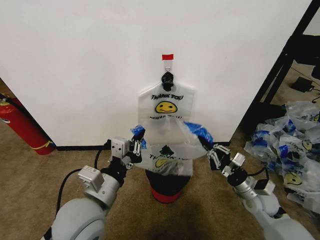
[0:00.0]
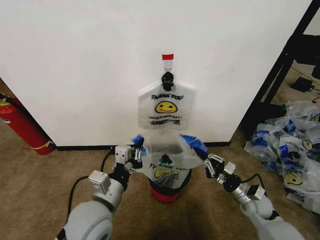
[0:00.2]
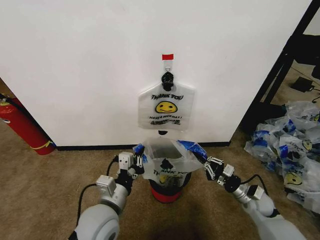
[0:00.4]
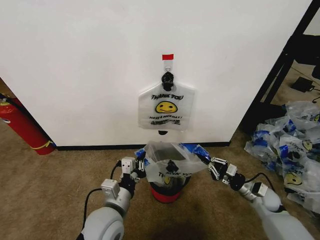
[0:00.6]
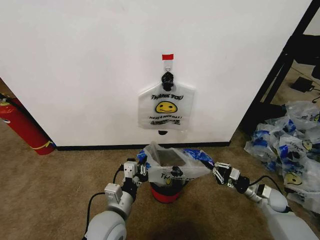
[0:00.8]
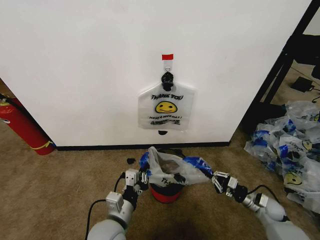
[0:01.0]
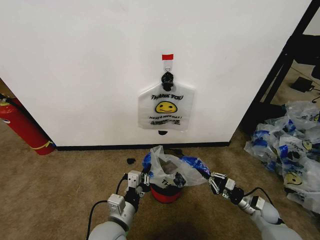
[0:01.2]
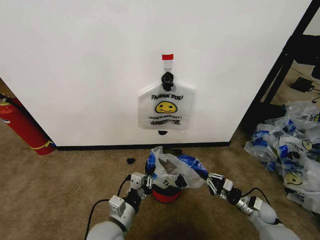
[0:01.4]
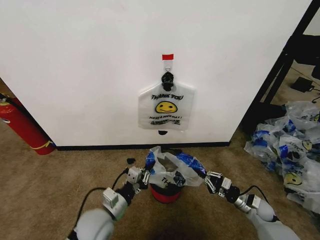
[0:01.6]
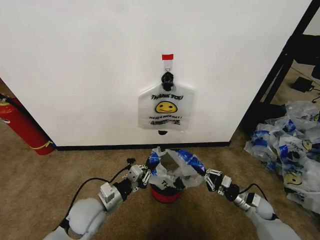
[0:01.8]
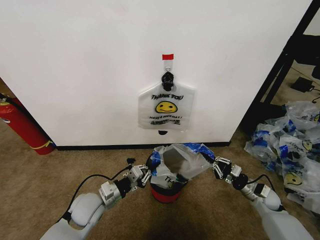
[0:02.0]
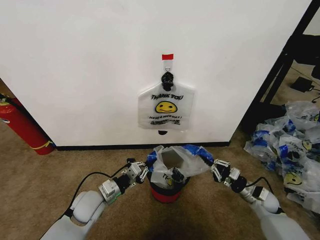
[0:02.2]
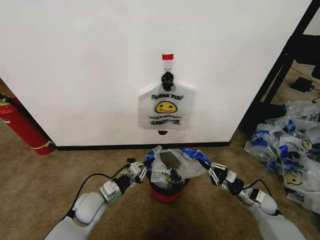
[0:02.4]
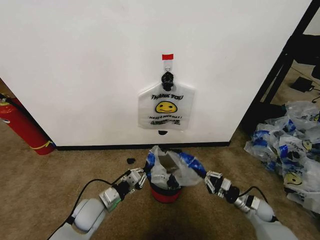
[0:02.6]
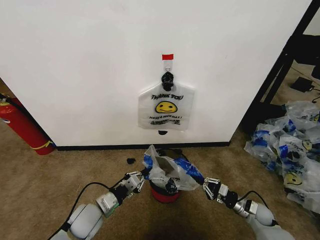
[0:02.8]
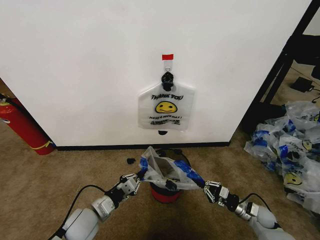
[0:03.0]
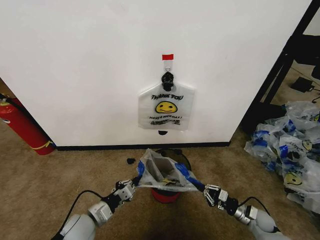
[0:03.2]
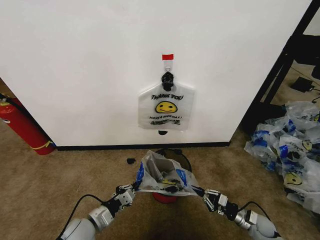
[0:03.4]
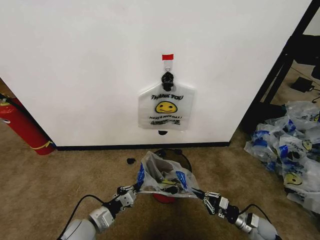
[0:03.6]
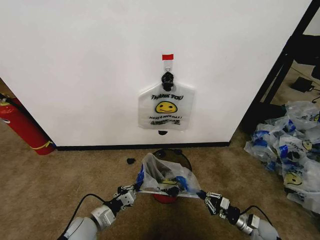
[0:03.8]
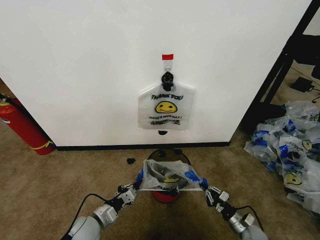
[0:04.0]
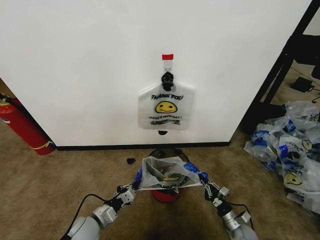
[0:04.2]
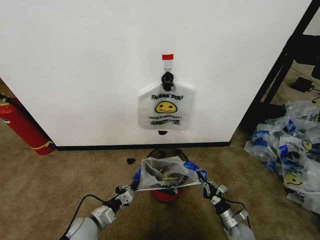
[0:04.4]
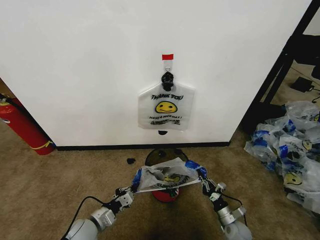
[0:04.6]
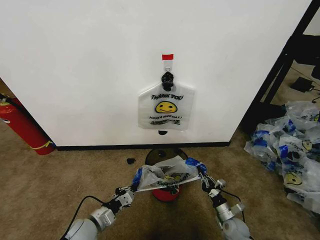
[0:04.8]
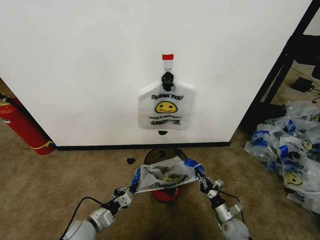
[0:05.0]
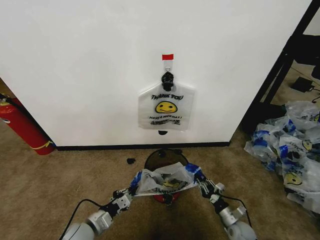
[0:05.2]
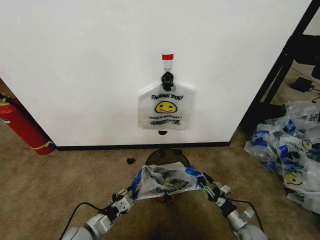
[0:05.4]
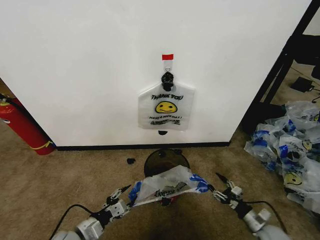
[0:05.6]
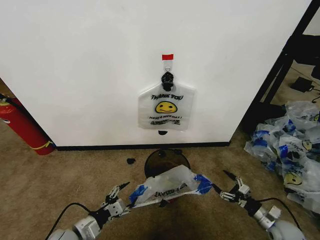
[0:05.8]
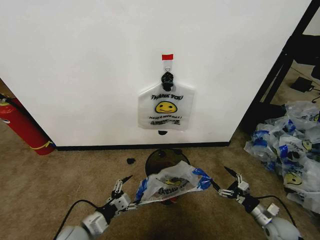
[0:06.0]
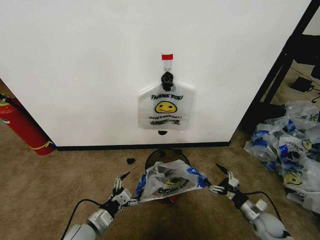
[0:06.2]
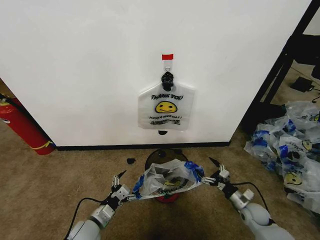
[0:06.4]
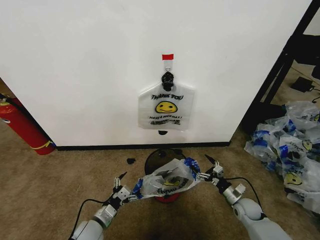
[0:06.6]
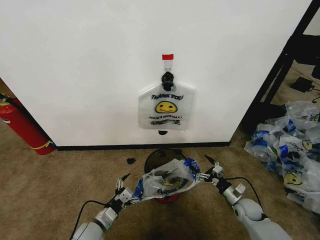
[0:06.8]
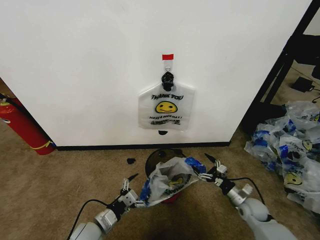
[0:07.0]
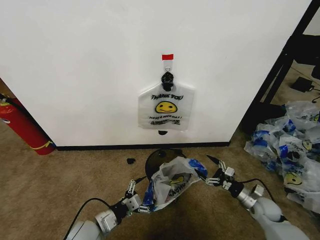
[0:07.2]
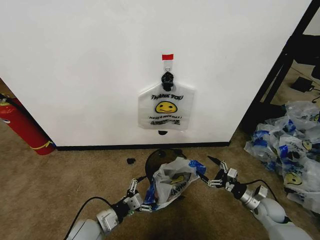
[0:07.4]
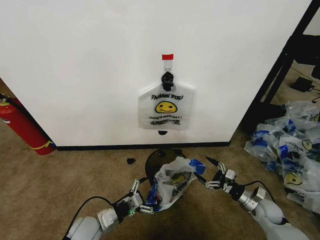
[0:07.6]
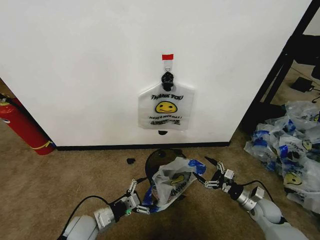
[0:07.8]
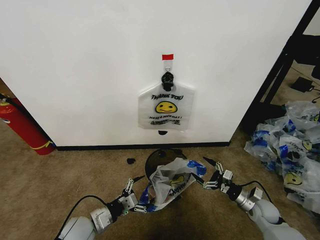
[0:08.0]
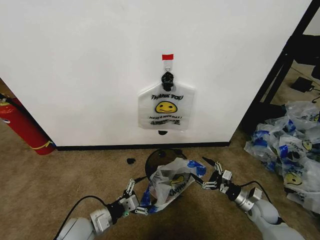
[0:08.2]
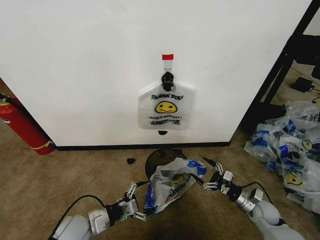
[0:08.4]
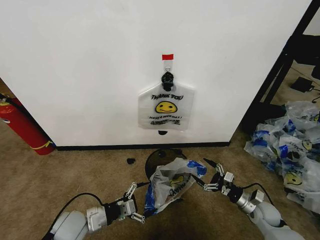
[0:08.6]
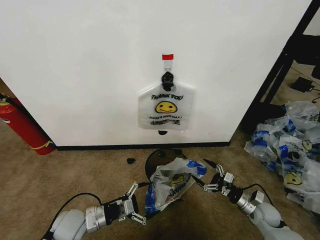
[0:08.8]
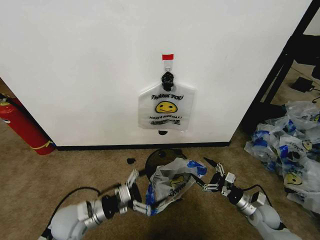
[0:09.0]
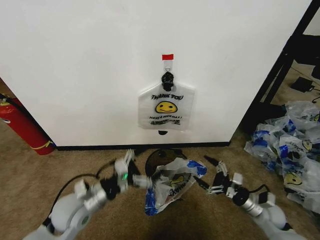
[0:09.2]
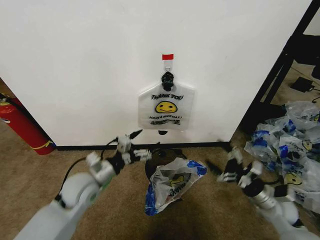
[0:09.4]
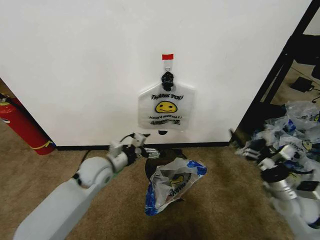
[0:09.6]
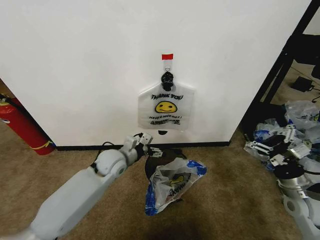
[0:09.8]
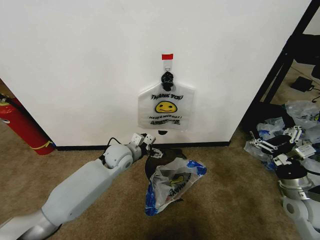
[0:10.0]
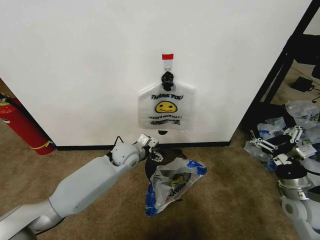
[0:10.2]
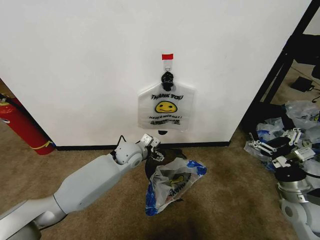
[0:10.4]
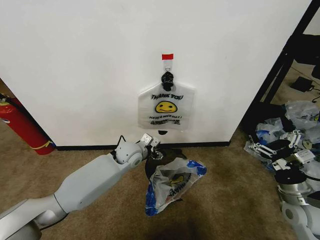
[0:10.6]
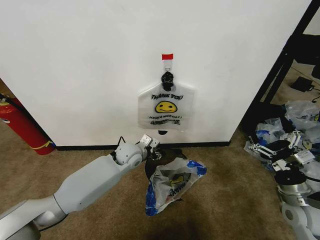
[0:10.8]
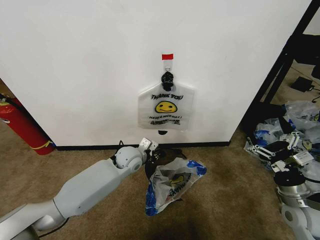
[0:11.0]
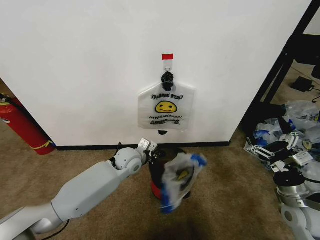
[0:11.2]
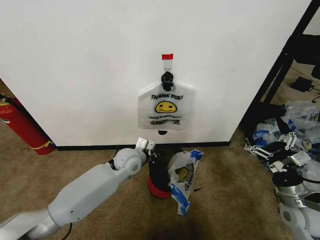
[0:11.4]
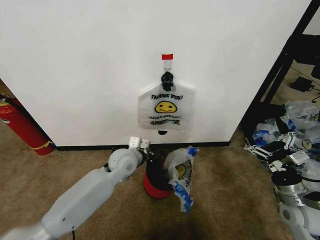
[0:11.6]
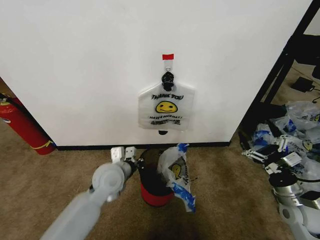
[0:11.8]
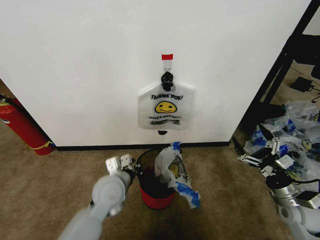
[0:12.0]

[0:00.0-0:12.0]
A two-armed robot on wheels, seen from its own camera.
Task of the whole recording: Pick up the garbage bag from the wall and place it over the trash bin.
0.0 to 1.6 s: The right gripper shifts some 15 cm downward and to the right, while the left gripper is displaced downward by approximately 15 cm.
1.6 to 3.0 s: The left gripper ends up roughly 5 cm from where it was.
3.0 to 4.4 s: The left gripper travels downward by some 5 cm. Meanwhile the right gripper is displaced downward and to the left by some 10 cm.
4.4 to 6.0 s: The left gripper moves approximately 5 cm, and opens. Meanwhile the right gripper travels to the right and upward by about 15 cm, and opens up.
6.0 to 7.6 s: The right gripper moves forward, some 5 cm.
7.6 to 9.0 s: The left gripper goes about 10 cm upward.
9.0 to 10.4 s: The left gripper shifts approximately 25 cm forward and to the right. The right gripper goes approximately 15 cm upward.
10.4 to 12.0 s: The left gripper shifts approximately 15 cm backward, and closes.

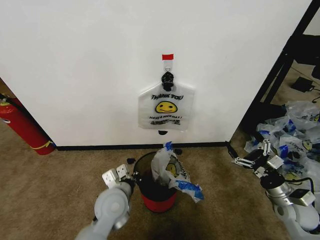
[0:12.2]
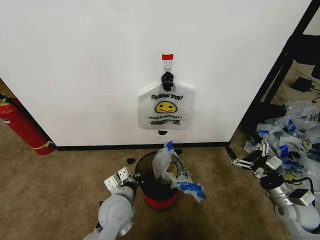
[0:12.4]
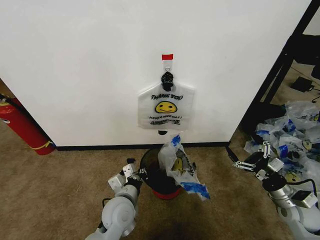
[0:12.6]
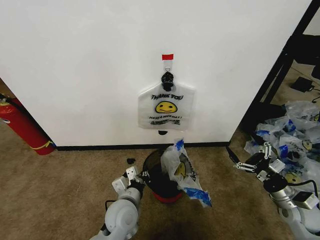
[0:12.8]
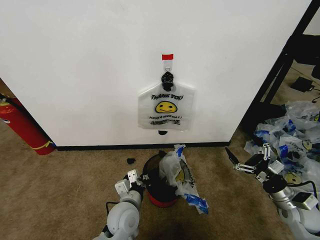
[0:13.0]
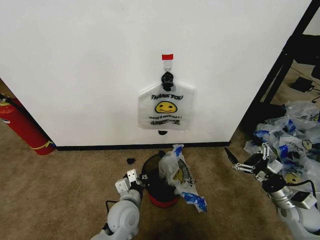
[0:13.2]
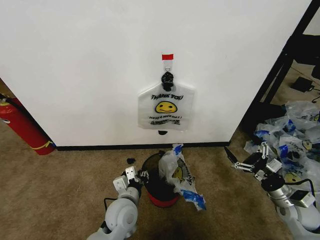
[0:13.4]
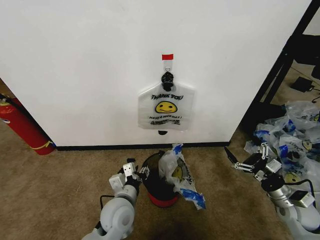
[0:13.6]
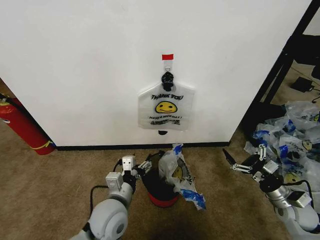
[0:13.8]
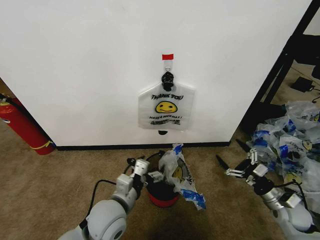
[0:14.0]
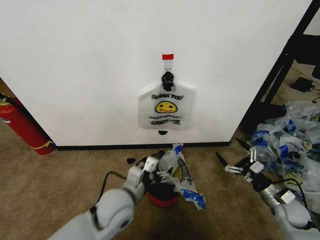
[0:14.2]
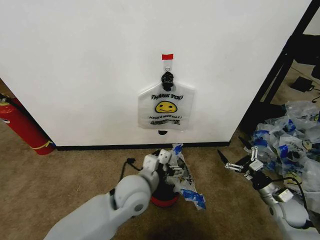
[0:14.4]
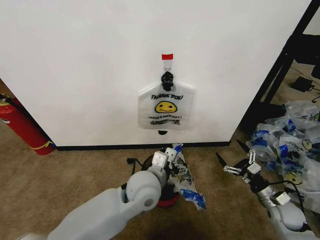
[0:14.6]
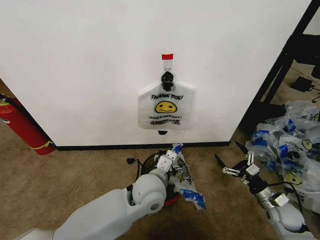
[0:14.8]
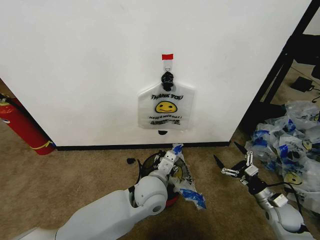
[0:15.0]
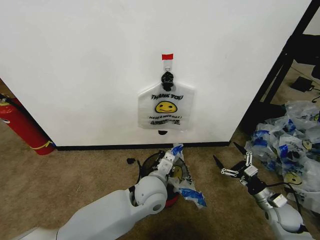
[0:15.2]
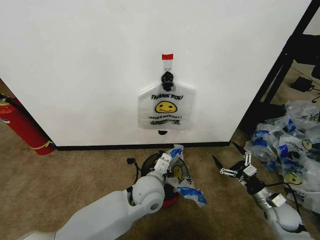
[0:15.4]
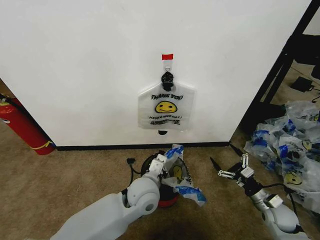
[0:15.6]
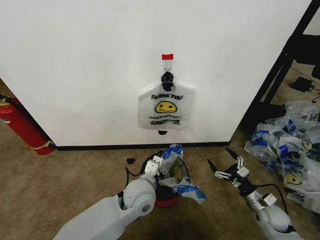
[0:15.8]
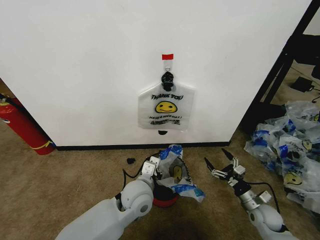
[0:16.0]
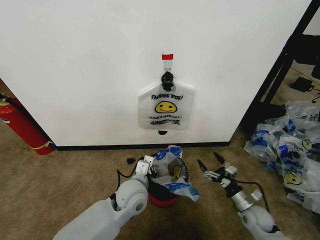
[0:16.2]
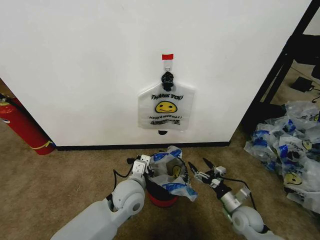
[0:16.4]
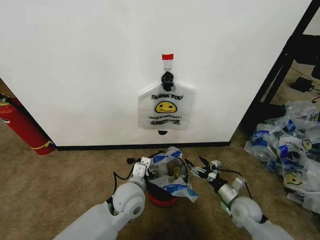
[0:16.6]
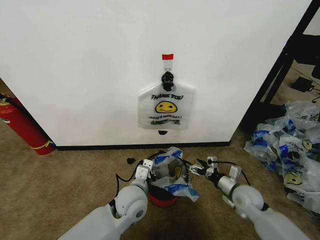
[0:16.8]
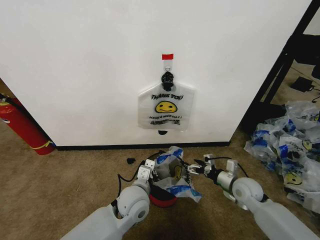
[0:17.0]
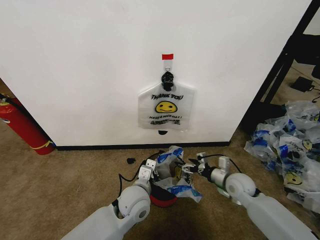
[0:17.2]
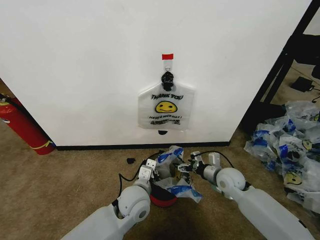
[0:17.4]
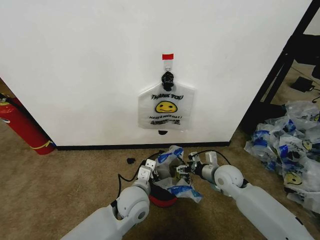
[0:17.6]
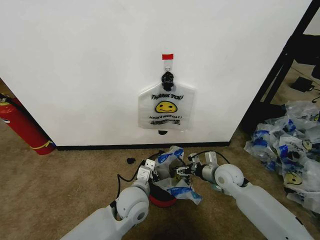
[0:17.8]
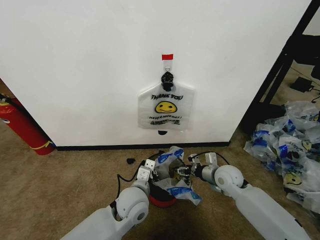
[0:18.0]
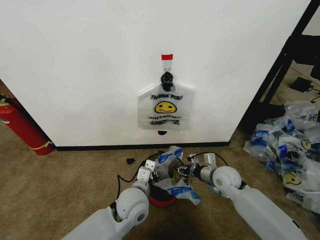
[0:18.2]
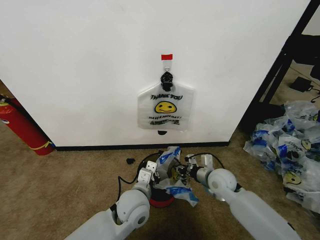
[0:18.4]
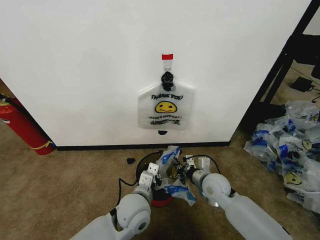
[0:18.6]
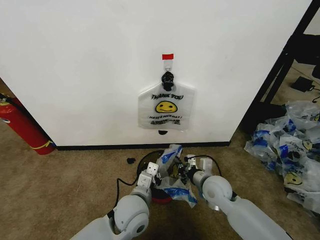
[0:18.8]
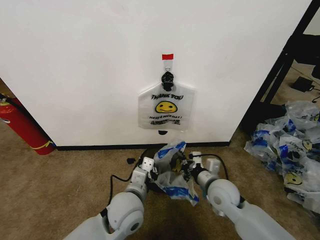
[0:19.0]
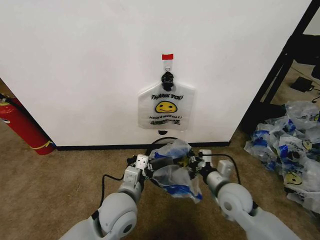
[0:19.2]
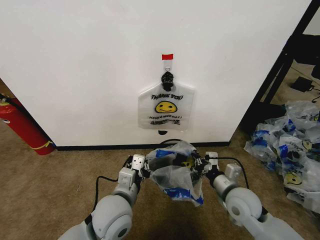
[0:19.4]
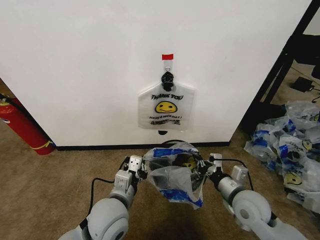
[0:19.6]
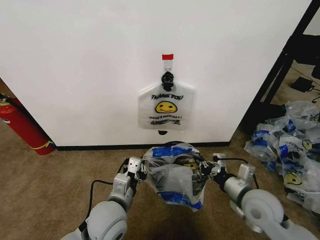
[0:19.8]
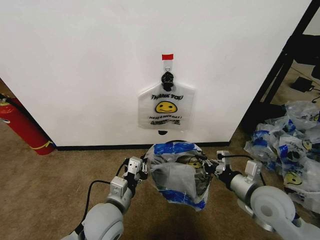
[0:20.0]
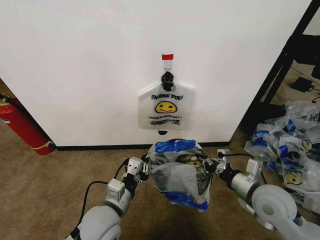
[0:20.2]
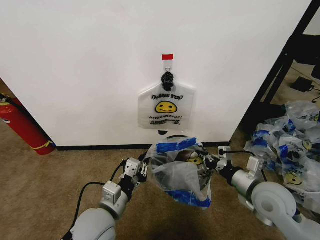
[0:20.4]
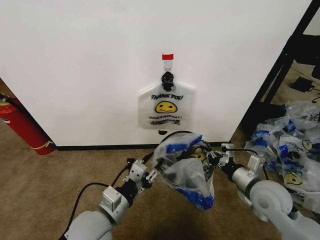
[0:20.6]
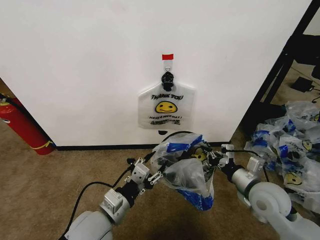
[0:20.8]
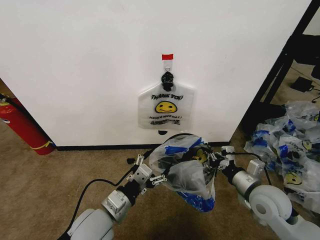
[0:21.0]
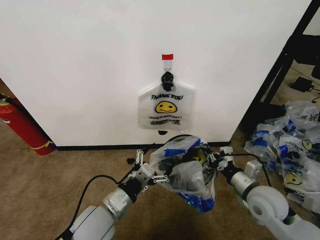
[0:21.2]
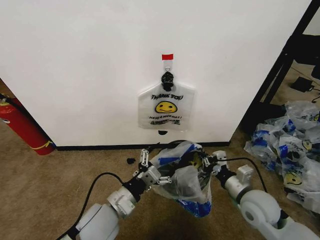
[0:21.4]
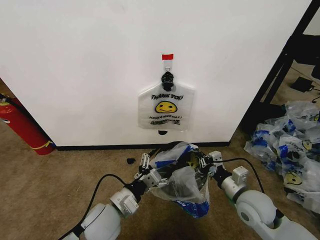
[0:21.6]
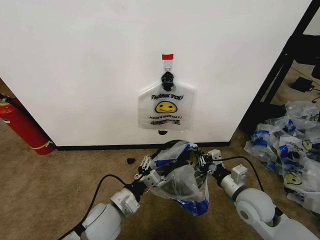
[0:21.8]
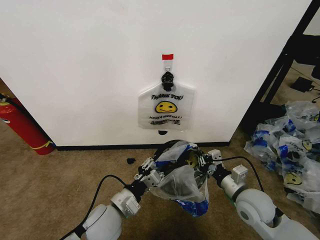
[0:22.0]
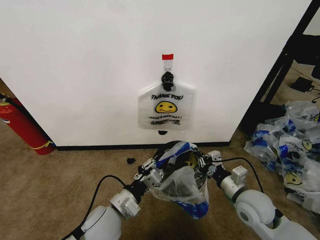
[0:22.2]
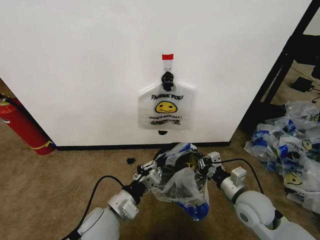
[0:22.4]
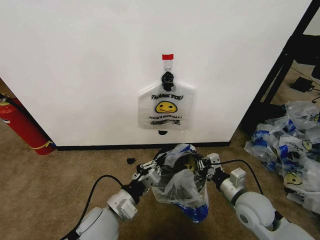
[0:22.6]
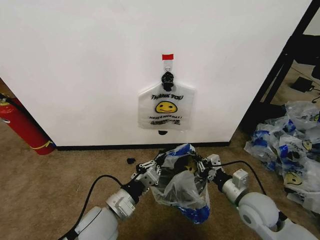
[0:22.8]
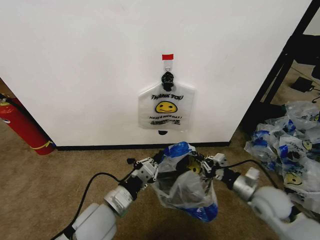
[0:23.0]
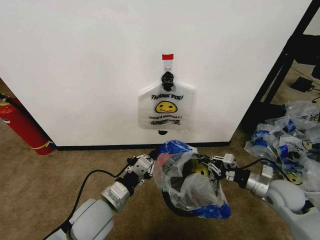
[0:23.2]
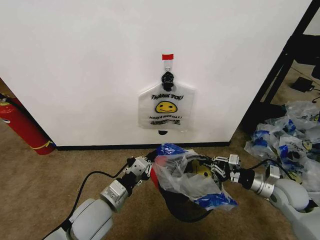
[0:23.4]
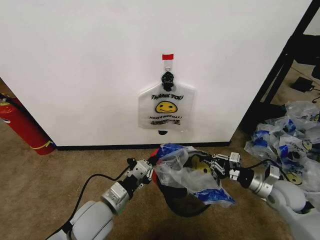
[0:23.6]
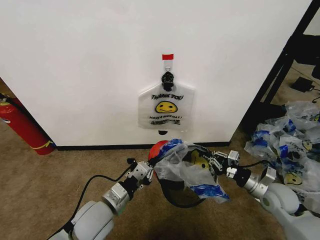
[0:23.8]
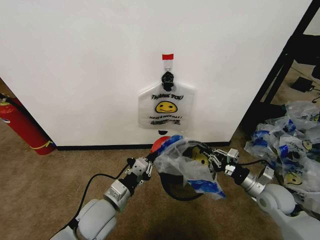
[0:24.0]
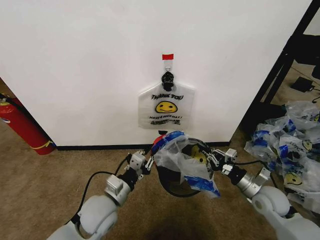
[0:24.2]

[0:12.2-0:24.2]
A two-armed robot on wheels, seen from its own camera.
Task of the whole recording: Pick up the garbage bag from the wall and place it over the trash bin.
12.2 to 13.8 s: The left gripper opens its fingers.
13.8 to 15.2 s: The right gripper heads downward, covering some 5 cm. The left gripper shifts about 15 cm to the right and forward, and closes its fingers.
15.2 to 16.6 s: The left gripper heads to the left, covering approximately 5 cm, and closes its fingers; the right gripper goes about 10 cm to the left.
16.6 to 18.2 s: The right gripper moves forward, upward and to the left, roughly 15 cm, and closes.
18.2 to 19.8 s: The right gripper shifts some 15 cm backward and upward, and closes its fingers. The left gripper travels backward and to the left by some 10 cm.
19.8 to 21.2 s: The left gripper opens up.
21.2 to 22.6 s: The left gripper closes.
22.6 to 24.2 s: The right gripper heads to the right, covering roughly 10 cm.
